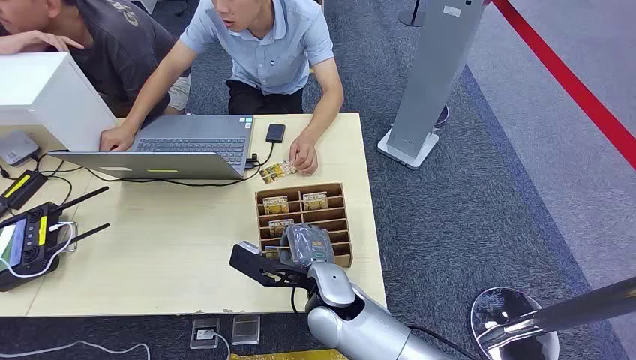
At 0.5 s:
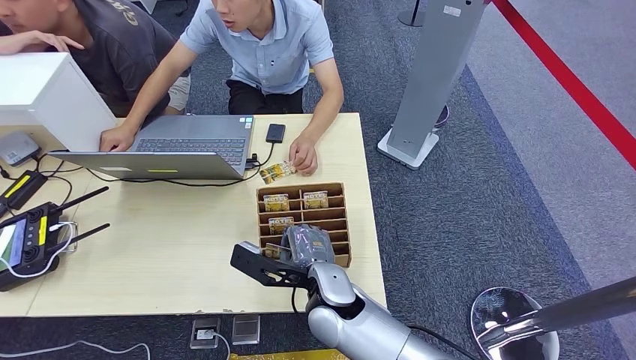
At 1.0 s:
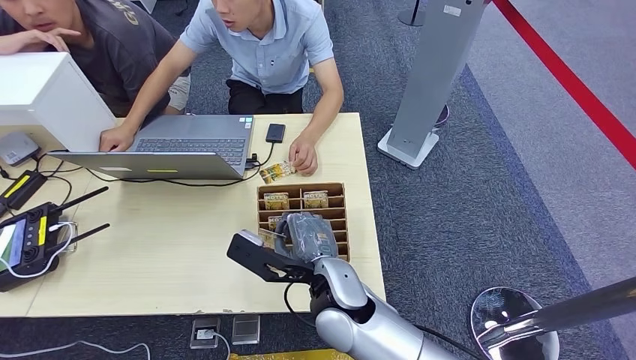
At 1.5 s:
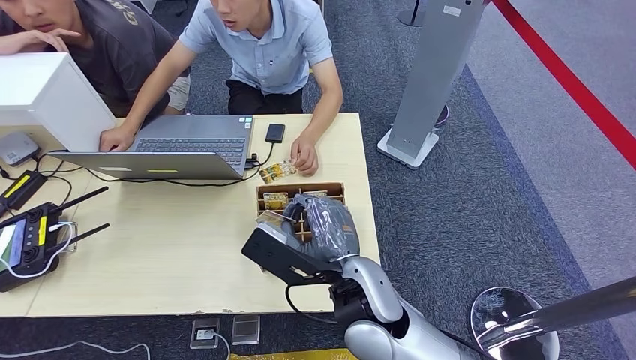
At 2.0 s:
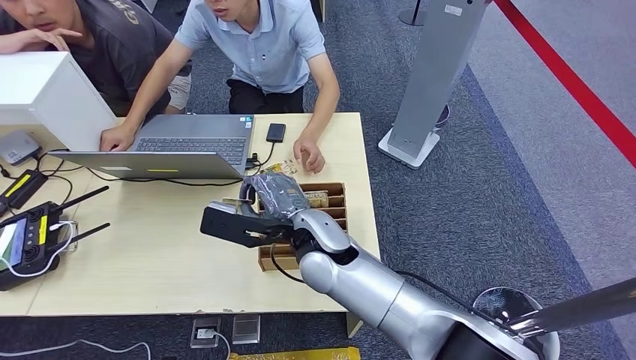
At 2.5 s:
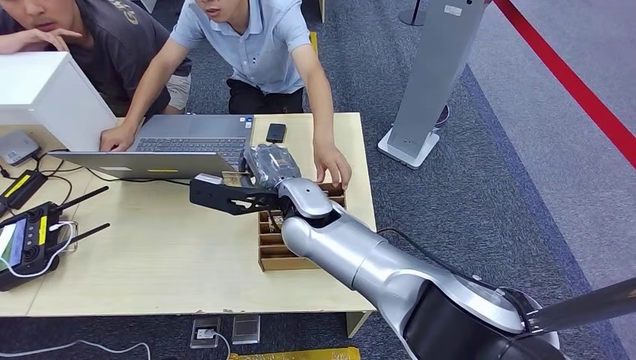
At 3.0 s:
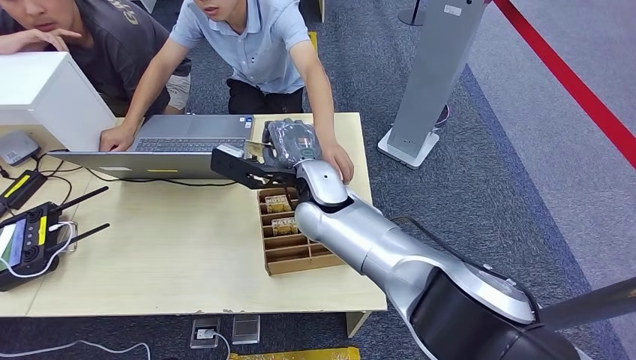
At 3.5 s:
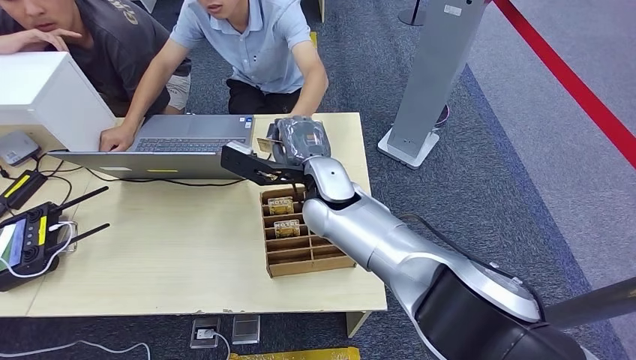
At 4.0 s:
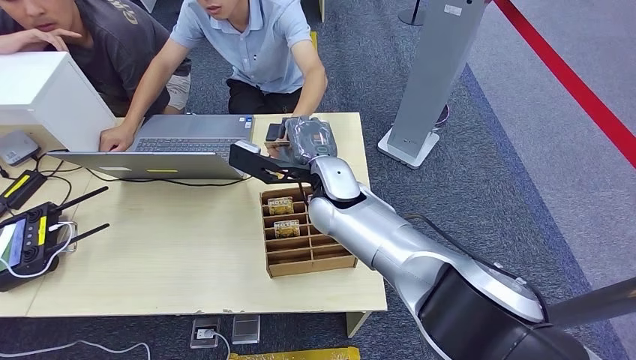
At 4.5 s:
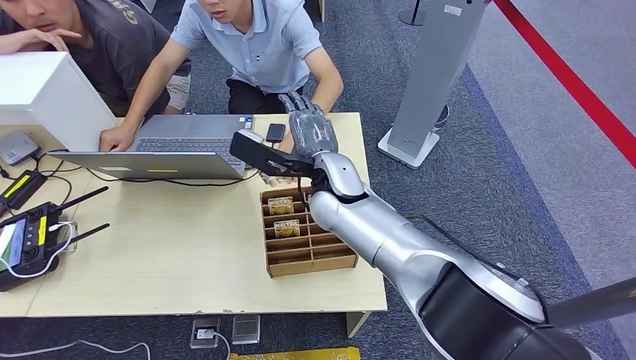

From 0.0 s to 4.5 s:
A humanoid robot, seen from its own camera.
Step, from 0.0 s to 1.0 s: Pick up the key card from the card box.
Step, from 2.0 s to 4.5 s: Hand the key card to the target.
From 2.0 s to 4.5 s: The right hand travels forward by approximately 10 cm.
